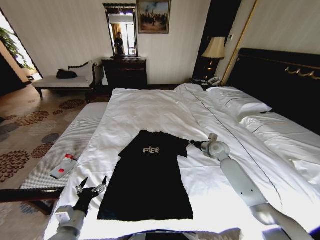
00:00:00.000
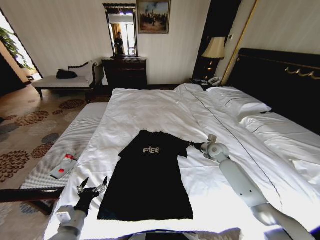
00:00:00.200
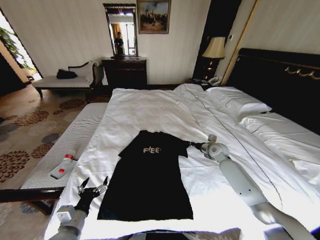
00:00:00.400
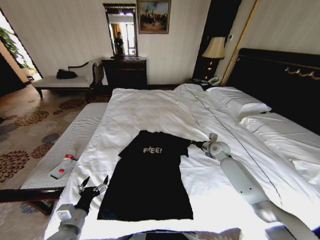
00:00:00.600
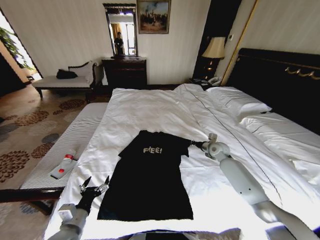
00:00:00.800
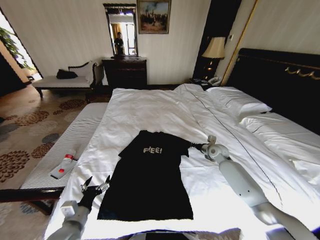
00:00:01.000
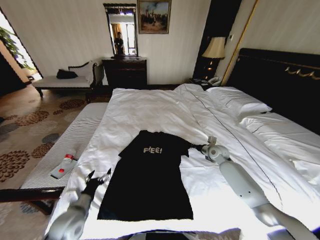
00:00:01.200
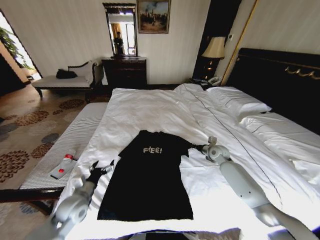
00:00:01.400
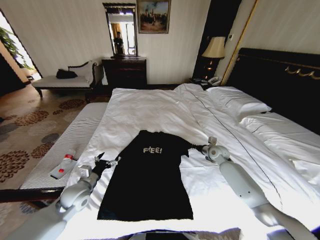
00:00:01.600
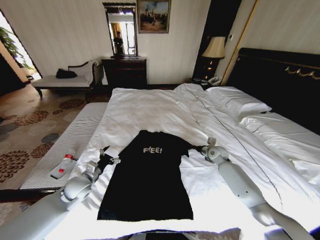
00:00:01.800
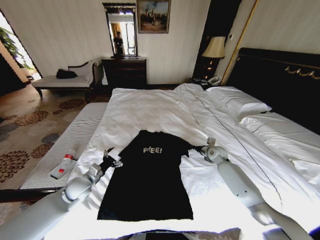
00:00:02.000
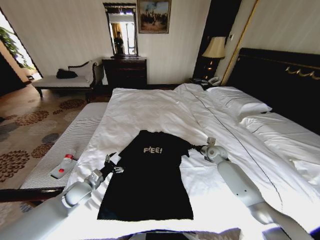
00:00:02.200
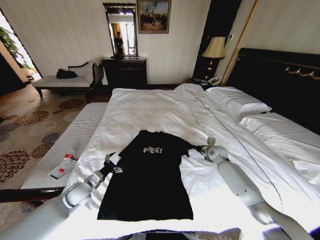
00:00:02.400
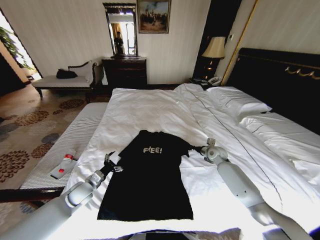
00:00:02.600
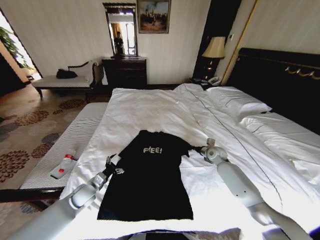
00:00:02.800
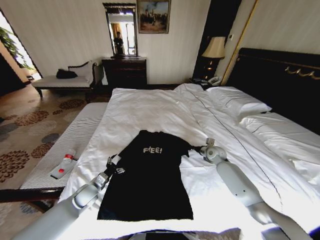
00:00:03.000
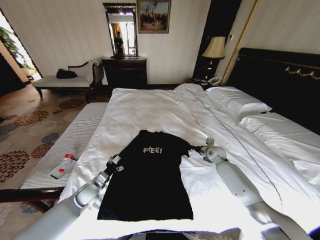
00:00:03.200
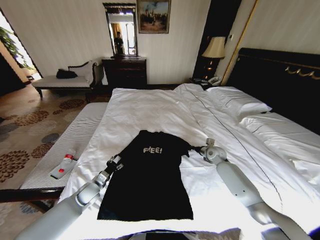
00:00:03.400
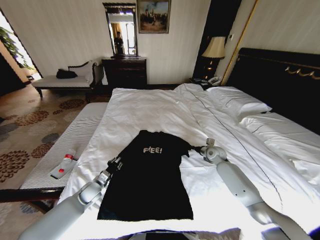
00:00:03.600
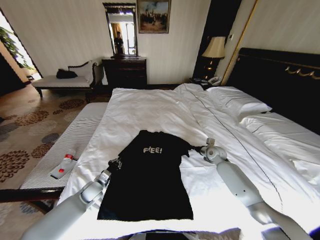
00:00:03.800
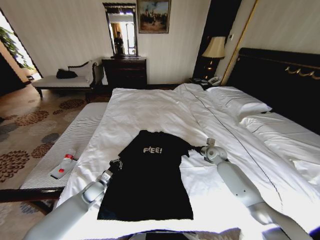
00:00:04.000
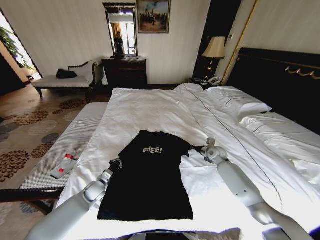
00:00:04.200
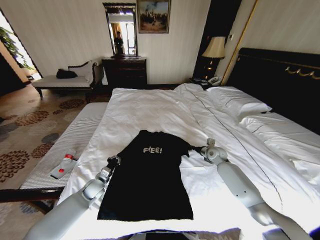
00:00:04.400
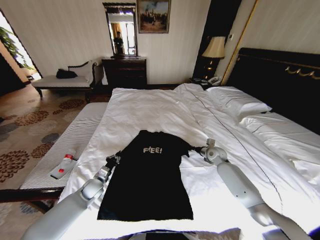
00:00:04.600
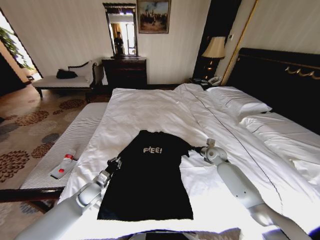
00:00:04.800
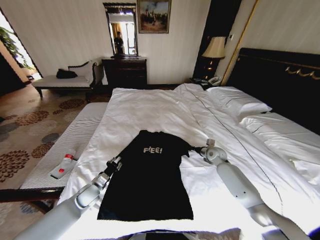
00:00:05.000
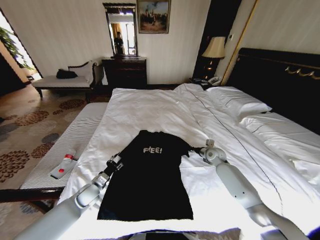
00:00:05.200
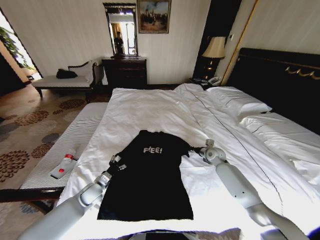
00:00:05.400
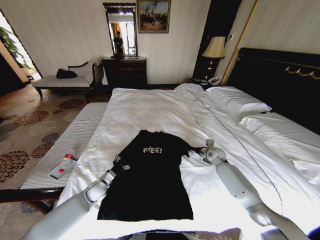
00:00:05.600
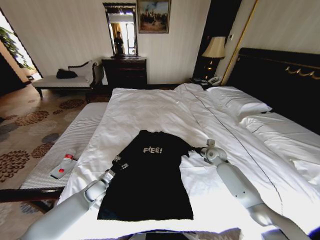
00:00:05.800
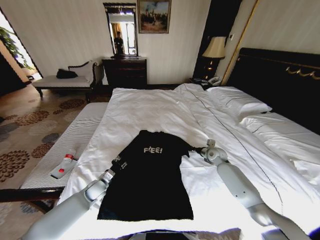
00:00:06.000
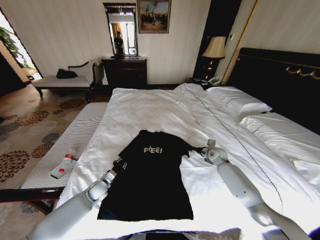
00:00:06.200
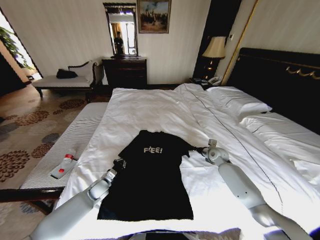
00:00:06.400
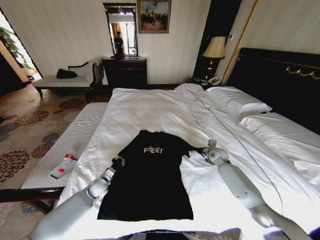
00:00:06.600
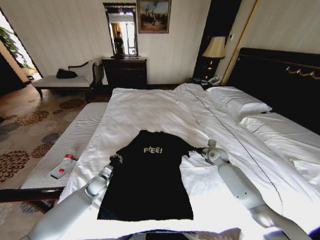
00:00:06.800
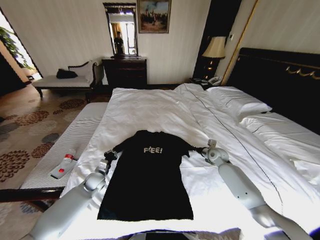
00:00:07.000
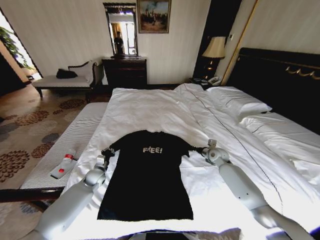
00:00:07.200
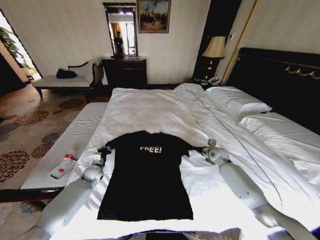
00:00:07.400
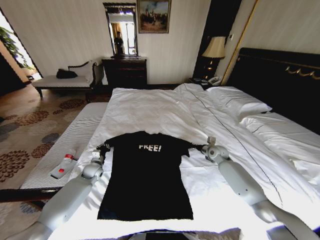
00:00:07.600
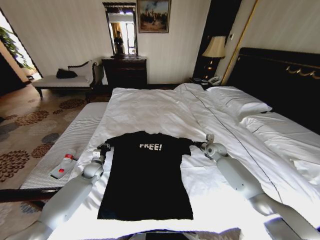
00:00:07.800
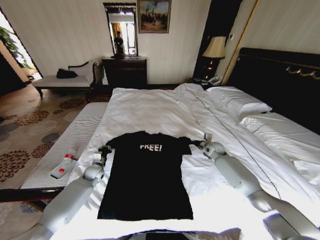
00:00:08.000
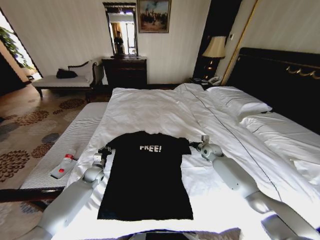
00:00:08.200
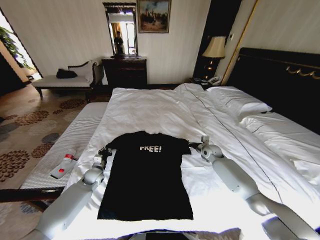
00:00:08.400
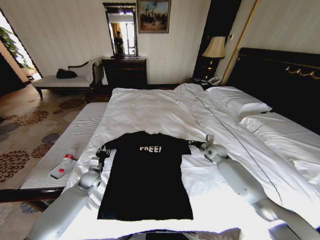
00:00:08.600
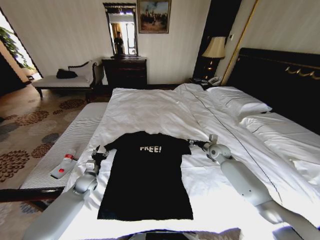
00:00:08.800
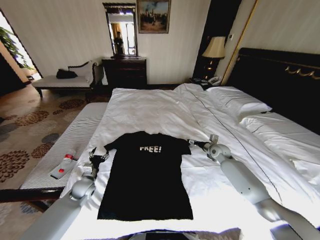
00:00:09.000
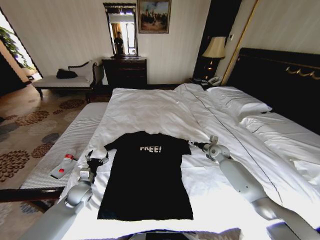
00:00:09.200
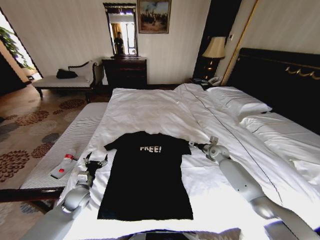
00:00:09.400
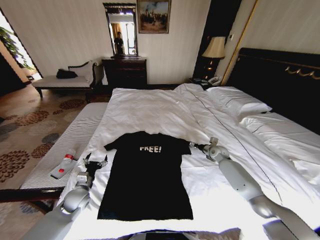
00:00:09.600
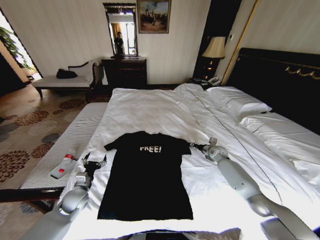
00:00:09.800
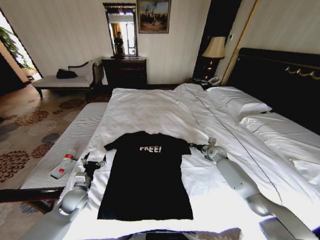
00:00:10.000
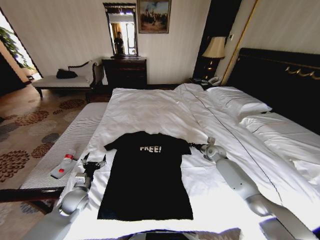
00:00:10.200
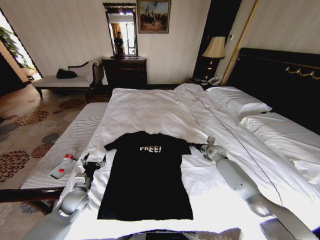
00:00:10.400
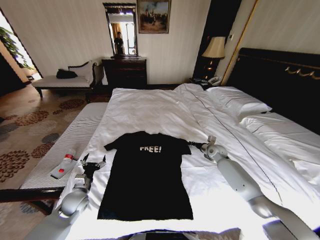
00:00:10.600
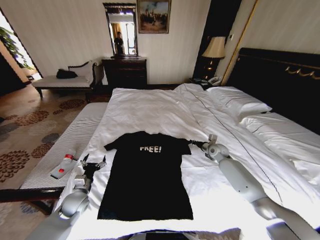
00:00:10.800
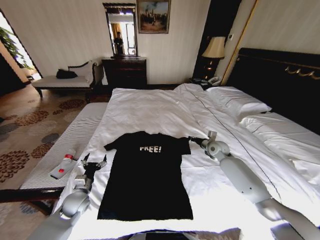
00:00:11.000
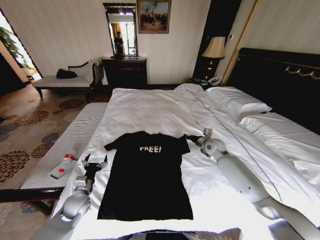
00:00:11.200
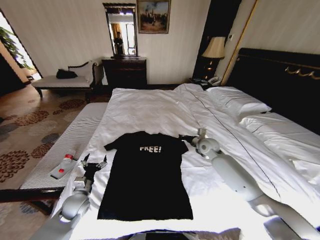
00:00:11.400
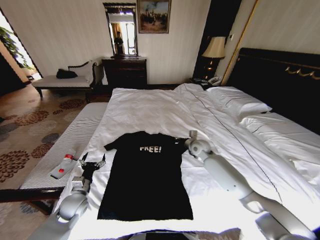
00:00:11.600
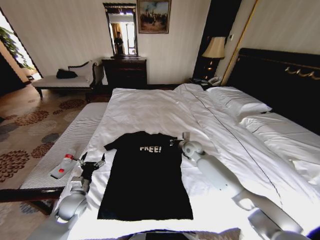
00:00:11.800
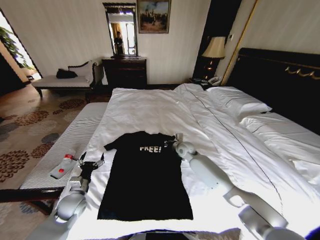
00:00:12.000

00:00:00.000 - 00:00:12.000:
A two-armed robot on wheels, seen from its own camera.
Task of the whole recording: Fold the clothes on the bed.
00:00:00.000 - 00:00:01.600: The left gripper shifts approximately 15 cm forward.
00:00:01.600 - 00:00:03.000: The left gripper shifts some 10 cm downward.
00:00:03.000 - 00:00:04.400: The left gripper closes up.
00:00:04.400 - 00:00:06.000: The left gripper opens its fingers.
00:00:06.000 - 00:00:07.600: The left gripper is displaced forward by about 10 cm, and closes up.
00:00:07.600 - 00:00:09.000: The right gripper opens. The left gripper heads backward, covering approximately 10 cm, and opens its fingers.
00:00:09.000 - 00:00:10.400: The right gripper closes up; the left gripper heads backward, covering approximately 5 cm.
00:00:10.400 - 00:00:12.000: The right gripper heads to the left, covering about 20 cm.

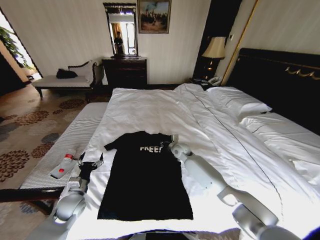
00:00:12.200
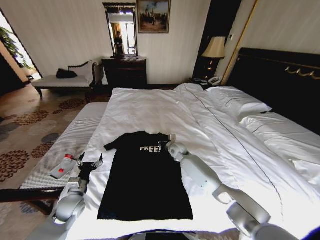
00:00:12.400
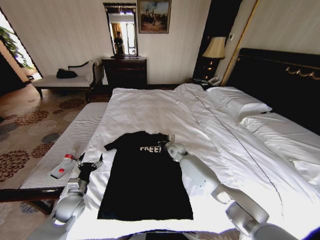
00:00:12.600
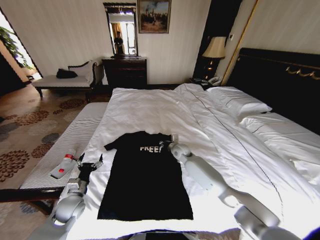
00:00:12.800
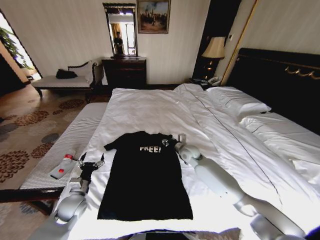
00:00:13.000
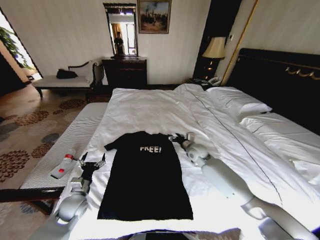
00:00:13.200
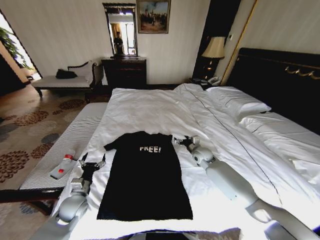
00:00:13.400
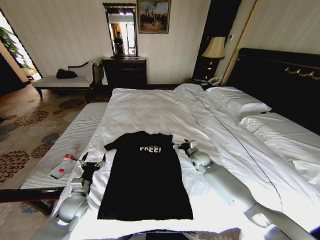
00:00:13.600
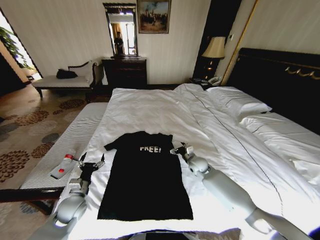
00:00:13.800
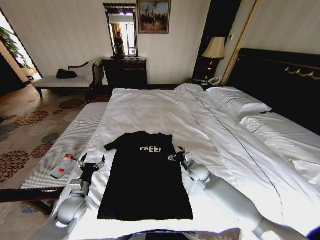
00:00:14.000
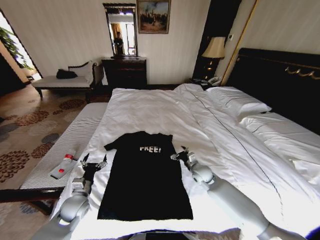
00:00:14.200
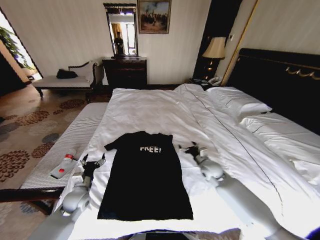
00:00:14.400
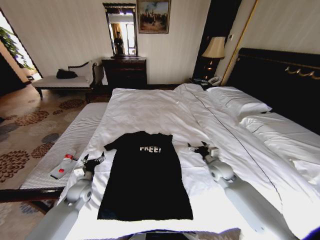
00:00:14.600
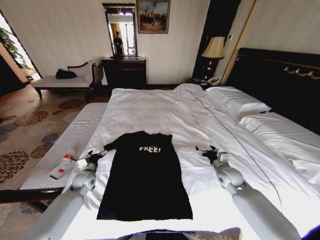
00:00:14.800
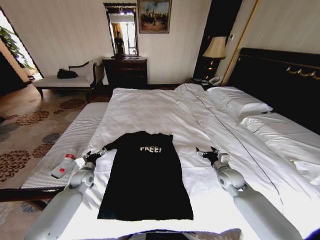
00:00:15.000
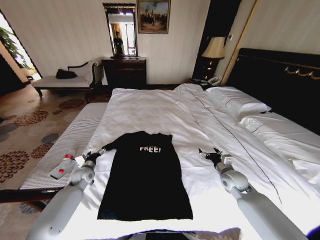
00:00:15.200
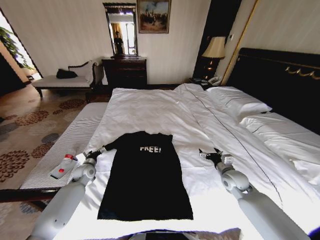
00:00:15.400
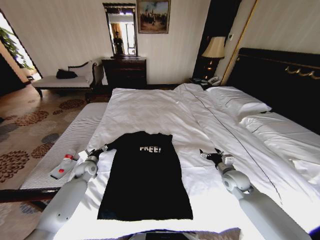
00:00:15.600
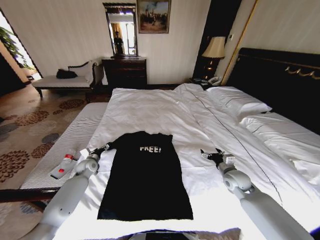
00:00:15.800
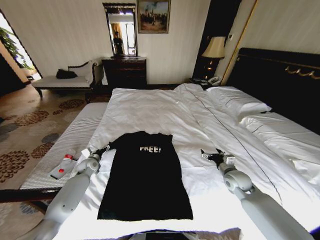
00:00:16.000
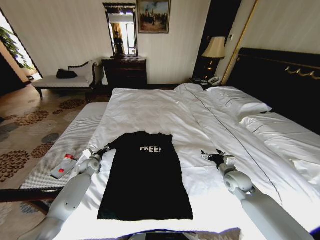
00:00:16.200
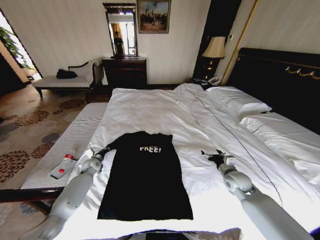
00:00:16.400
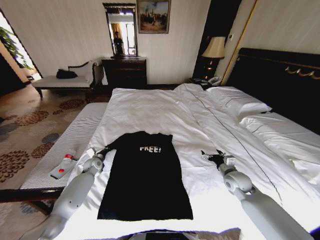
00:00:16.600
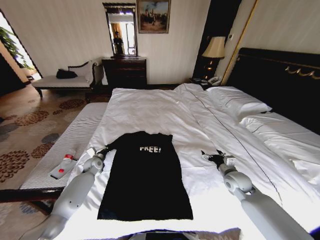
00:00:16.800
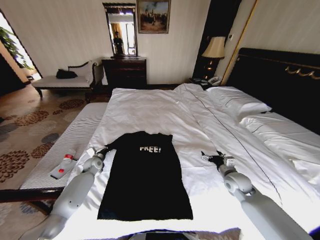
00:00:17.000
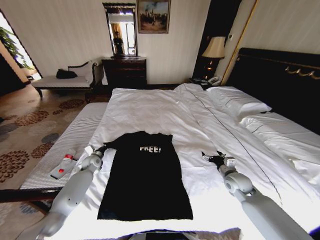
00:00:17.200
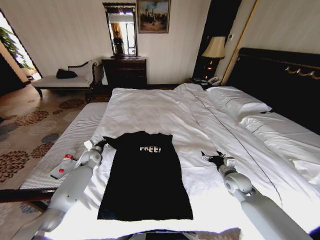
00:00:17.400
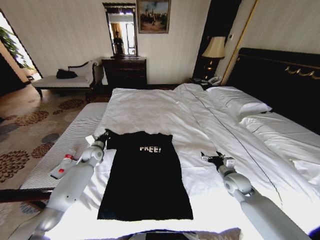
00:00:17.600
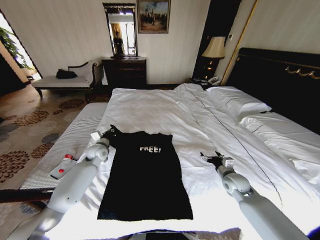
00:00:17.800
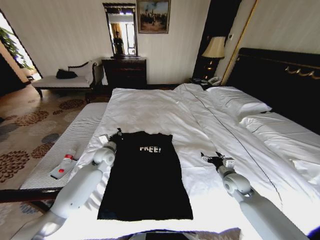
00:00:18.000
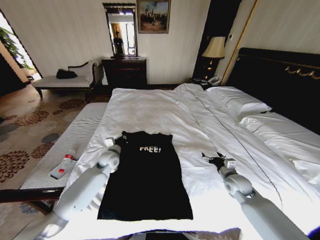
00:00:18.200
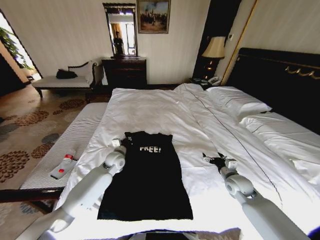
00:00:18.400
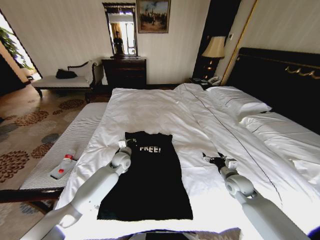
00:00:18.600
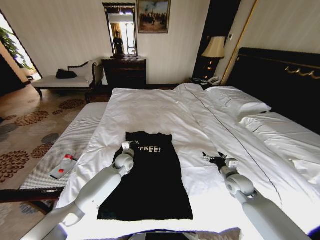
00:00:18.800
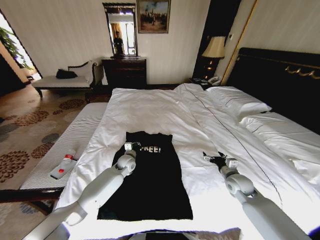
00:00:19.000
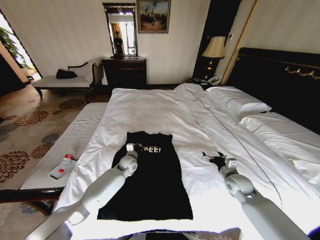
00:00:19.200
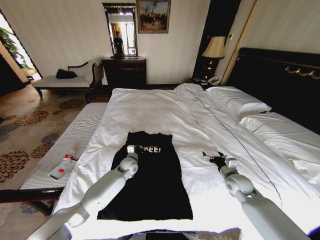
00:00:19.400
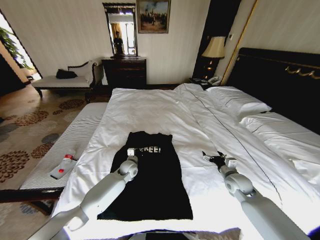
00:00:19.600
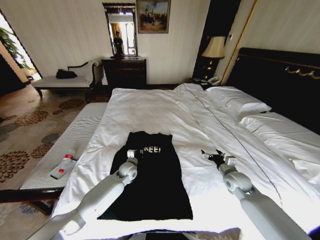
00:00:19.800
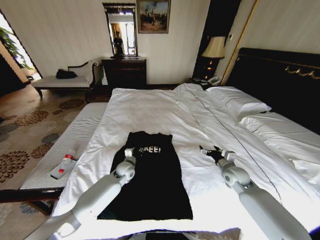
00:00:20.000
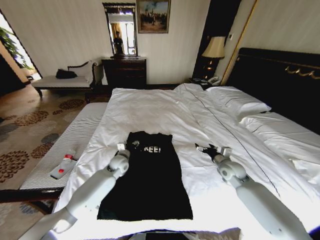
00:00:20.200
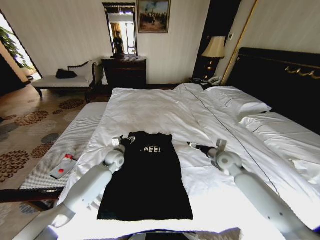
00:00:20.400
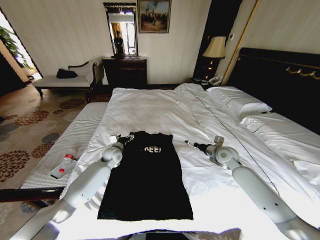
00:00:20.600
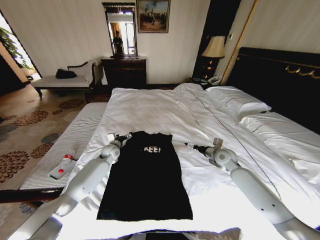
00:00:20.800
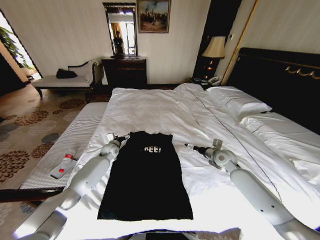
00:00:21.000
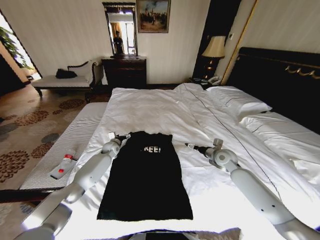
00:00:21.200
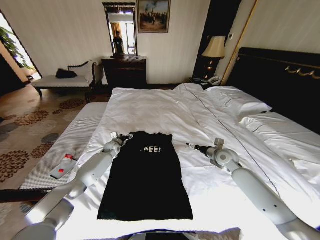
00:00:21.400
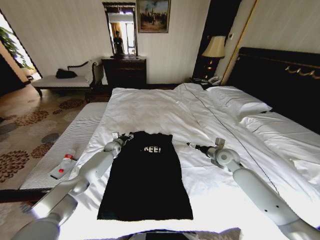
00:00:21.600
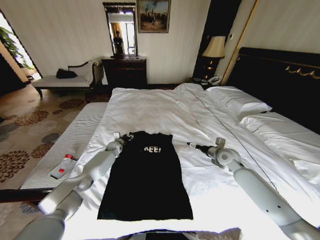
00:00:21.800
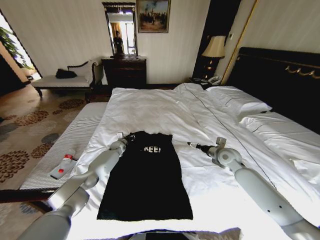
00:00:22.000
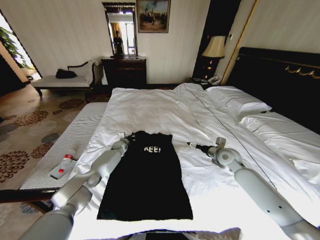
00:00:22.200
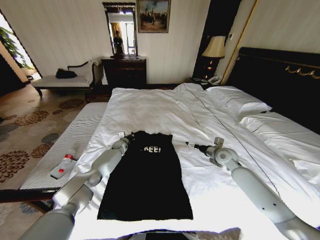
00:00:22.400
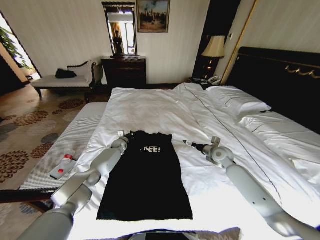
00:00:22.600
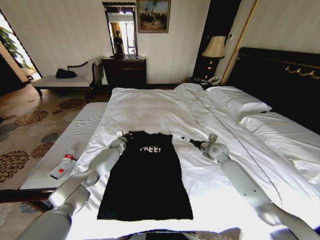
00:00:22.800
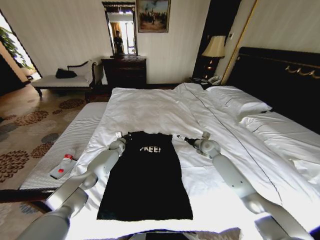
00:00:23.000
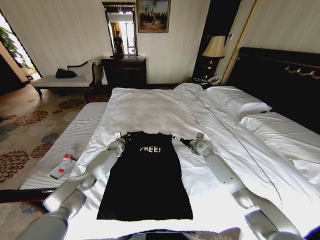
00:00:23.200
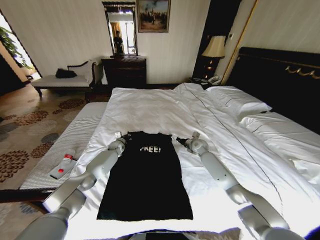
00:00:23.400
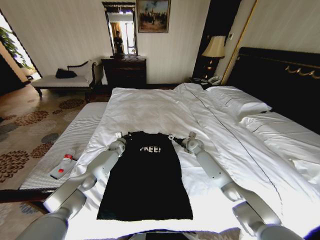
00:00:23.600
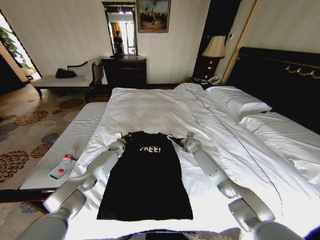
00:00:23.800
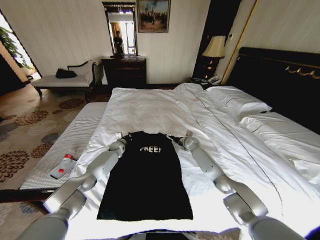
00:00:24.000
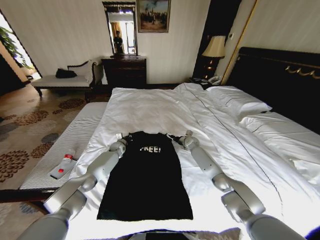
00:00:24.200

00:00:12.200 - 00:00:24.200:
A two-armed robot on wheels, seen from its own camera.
Task of the whole recording: Fold the clothes on the bed.
00:00:12.200 - 00:00:13.800: The right gripper travels to the right and backward by about 10 cm, and opens up.
00:00:13.800 - 00:00:15.200: The left gripper travels forward by about 15 cm. Meanwhile the right gripper is displaced to the right and backward by some 15 cm.
00:00:15.200 - 00:00:16.600: The left gripper is displaced forward by roughly 10 cm, and closes.
00:00:16.600 - 00:00:18.200: The left gripper shifts about 15 cm to the right and upward.
00:00:18.200 - 00:00:19.800: The left gripper is displaced to the right and downward by about 10 cm.
00:00:19.800 - 00:00:21.200: The right gripper moves forward and upward, about 10 cm. The left gripper moves forward and to the left, some 20 cm, and opens.
00:00:21.200 - 00:00:22.600: The left gripper shifts about 5 cm forward, and closes.
00:00:22.600 - 00:00:24.200: The right gripper shifts roughly 20 cm forward, to the left and downward.
